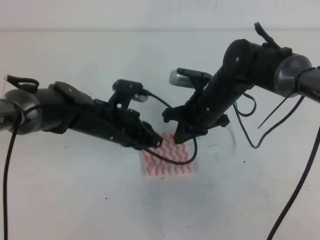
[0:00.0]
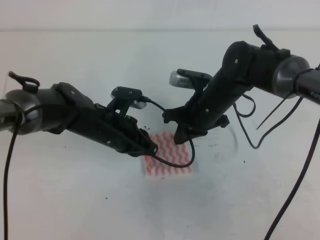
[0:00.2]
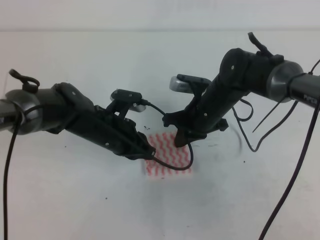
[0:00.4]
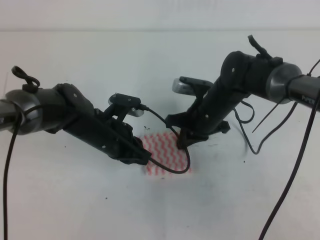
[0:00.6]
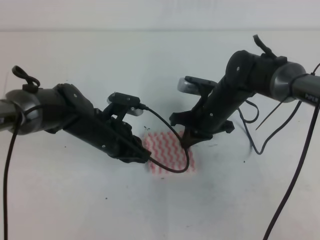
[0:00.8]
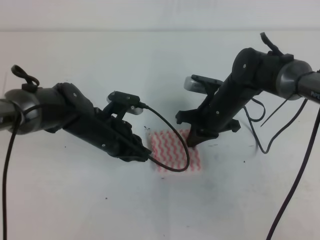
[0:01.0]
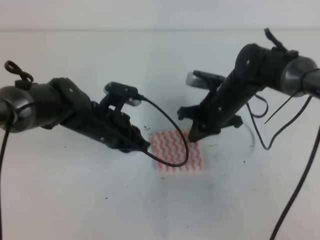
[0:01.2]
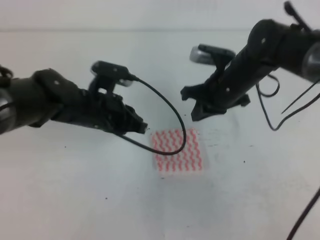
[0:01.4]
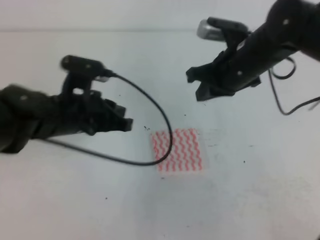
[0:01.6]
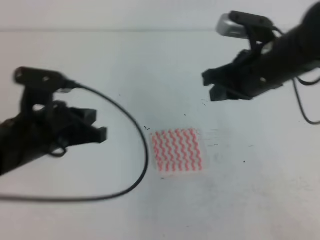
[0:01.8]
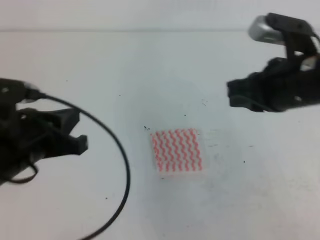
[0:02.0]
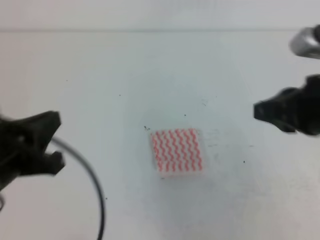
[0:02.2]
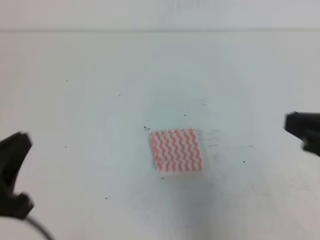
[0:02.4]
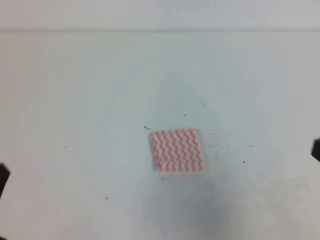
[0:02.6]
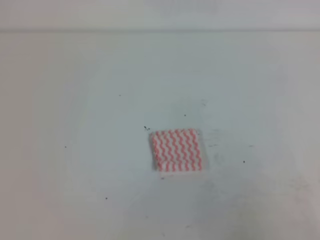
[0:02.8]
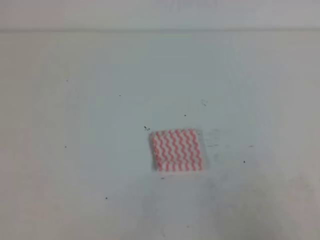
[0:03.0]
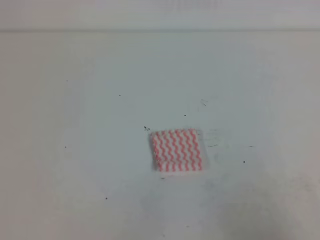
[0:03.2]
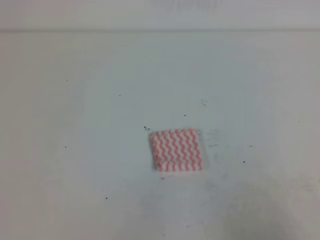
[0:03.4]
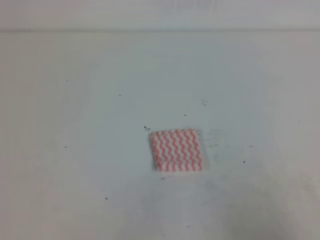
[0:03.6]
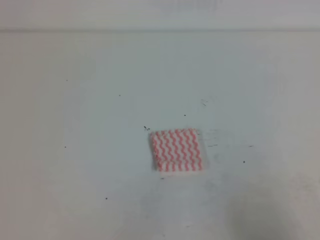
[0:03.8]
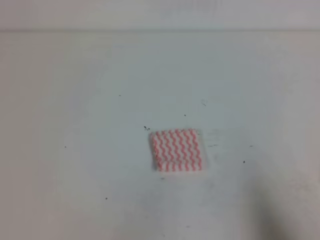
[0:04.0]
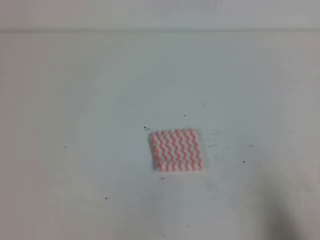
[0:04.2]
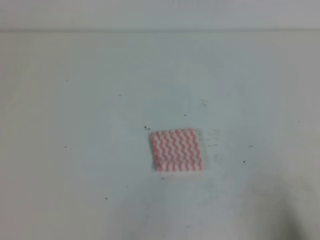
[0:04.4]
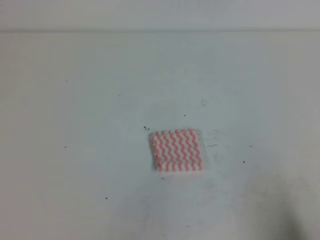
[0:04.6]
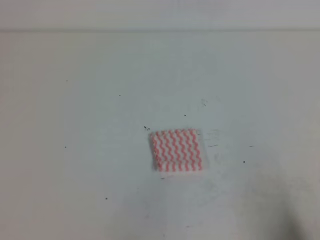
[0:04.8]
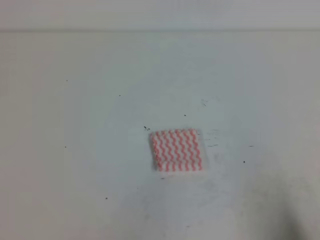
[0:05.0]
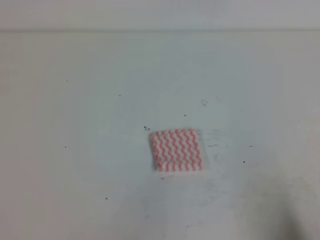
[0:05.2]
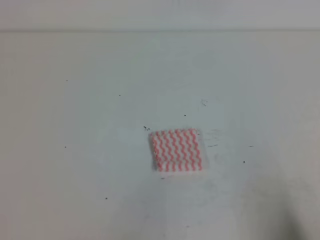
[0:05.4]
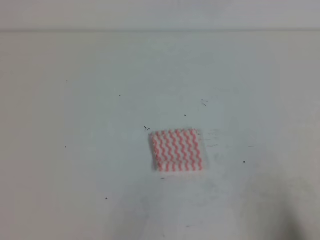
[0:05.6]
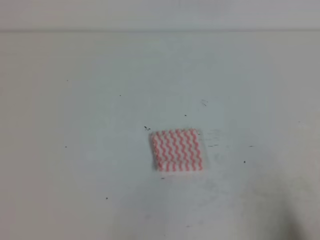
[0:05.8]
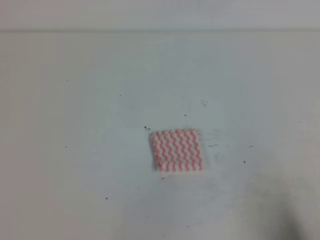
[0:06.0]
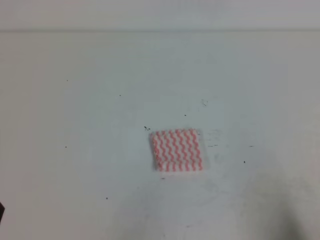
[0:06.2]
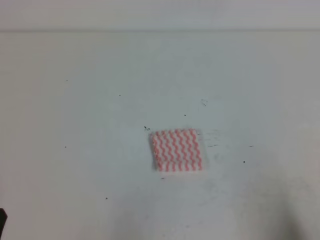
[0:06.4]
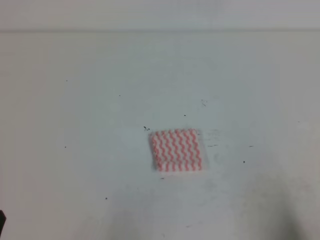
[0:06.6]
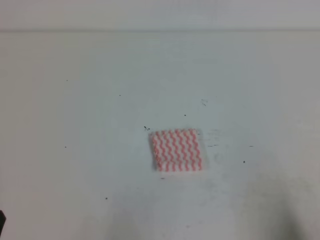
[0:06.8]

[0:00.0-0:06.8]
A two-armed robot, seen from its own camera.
0:00.0 to 0:01.4: The right gripper changes place by some 5 cm.
0:01.4 to 0:02.8: The right gripper shifts some 35 cm backward and to the right. The left gripper goes about 30 cm backward and to the left.
0:02.8 to 0:04.0: The right gripper moves downward, roughly 5 cm.
